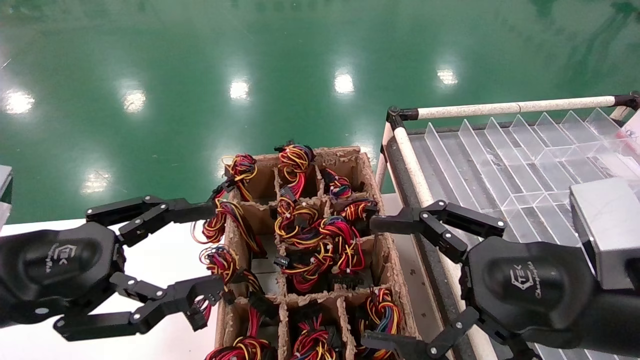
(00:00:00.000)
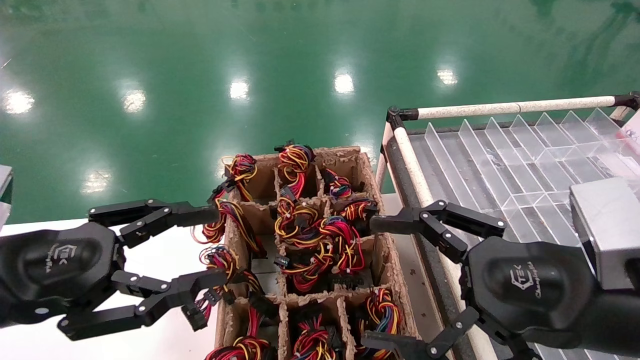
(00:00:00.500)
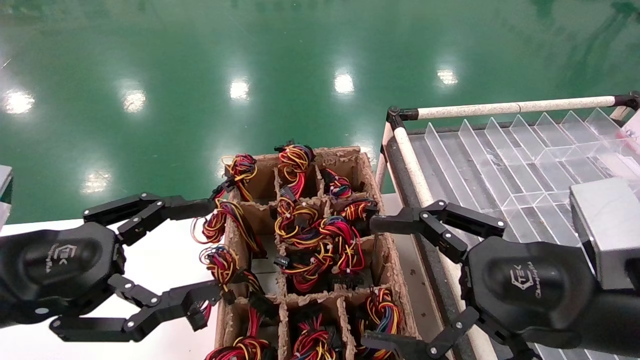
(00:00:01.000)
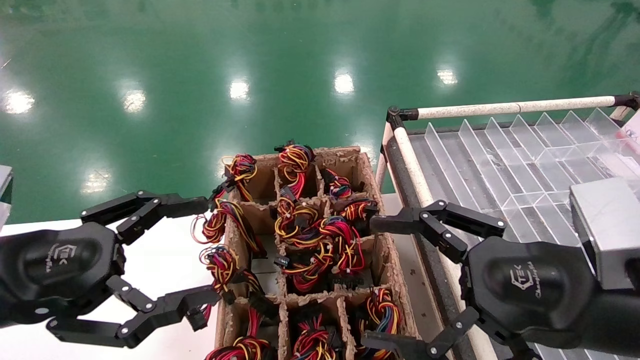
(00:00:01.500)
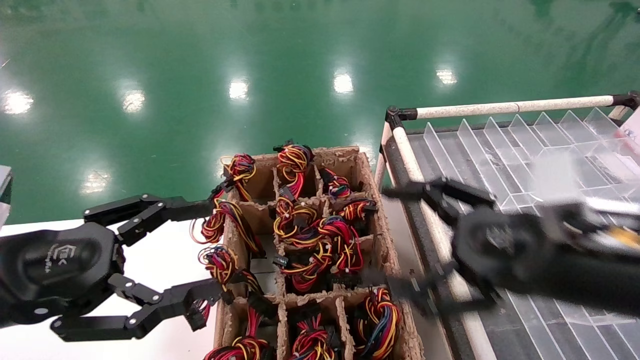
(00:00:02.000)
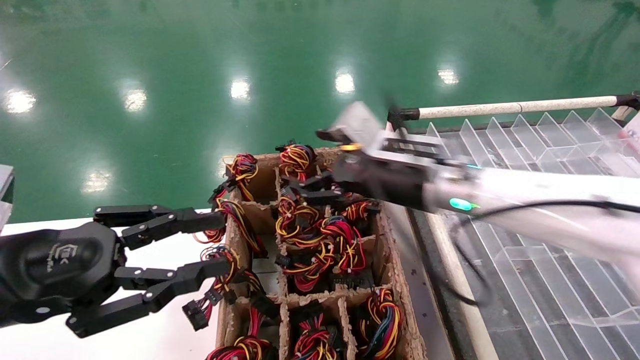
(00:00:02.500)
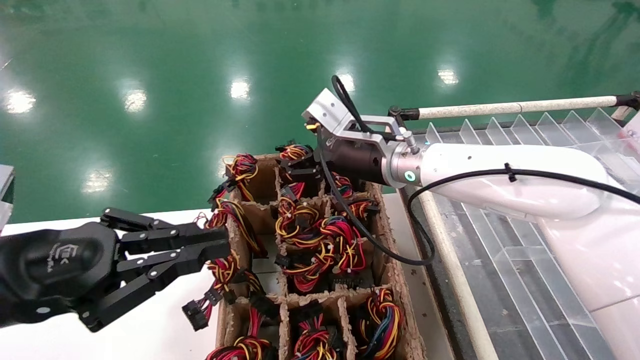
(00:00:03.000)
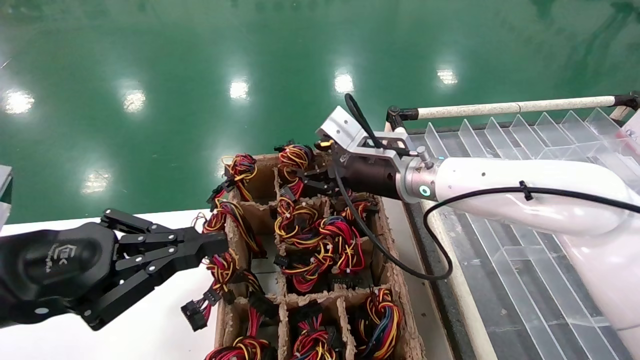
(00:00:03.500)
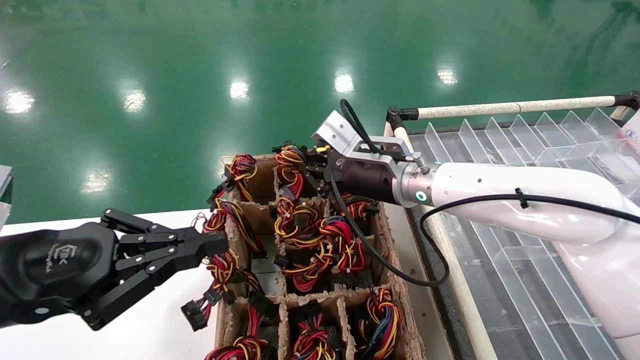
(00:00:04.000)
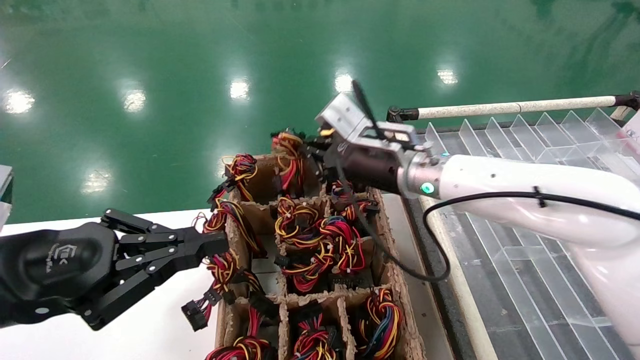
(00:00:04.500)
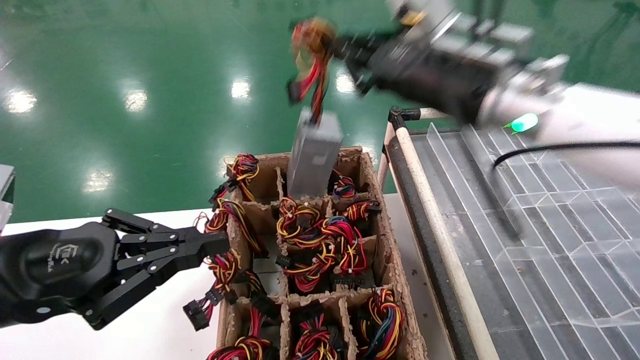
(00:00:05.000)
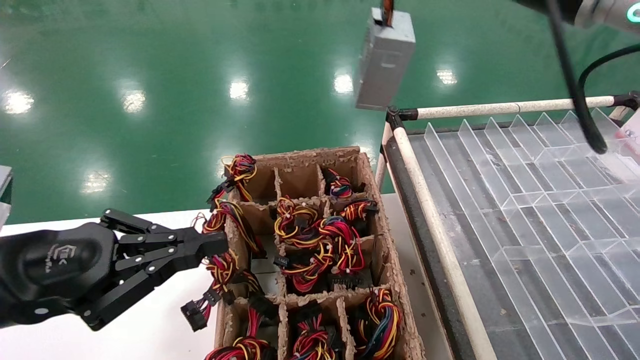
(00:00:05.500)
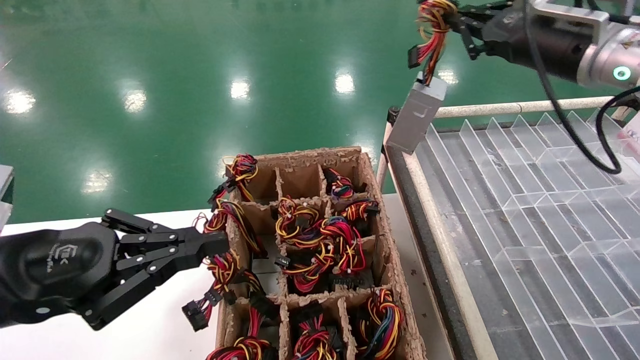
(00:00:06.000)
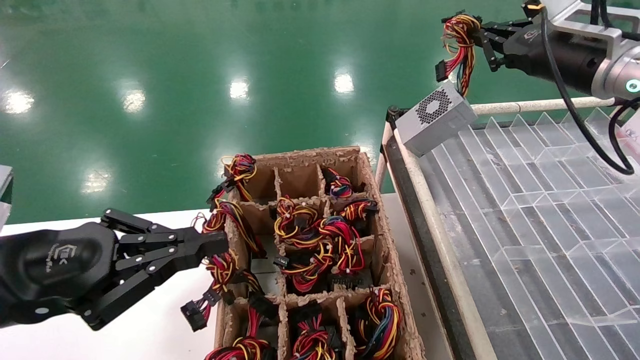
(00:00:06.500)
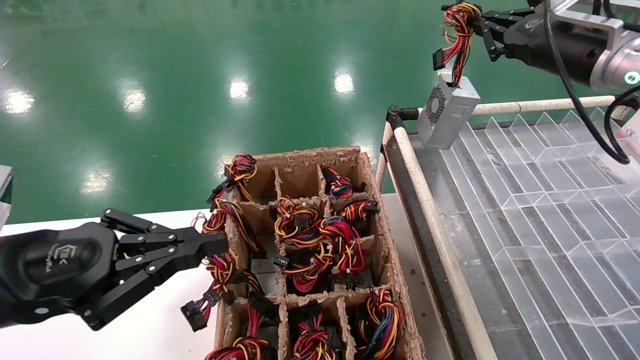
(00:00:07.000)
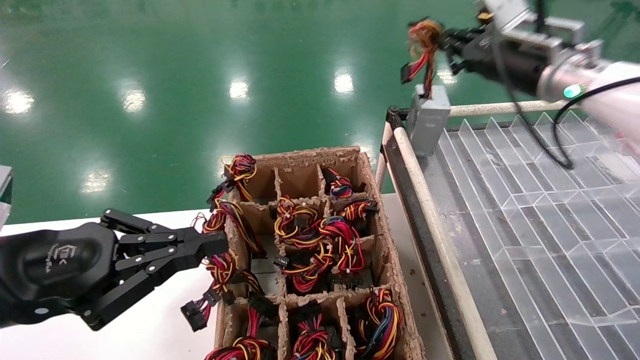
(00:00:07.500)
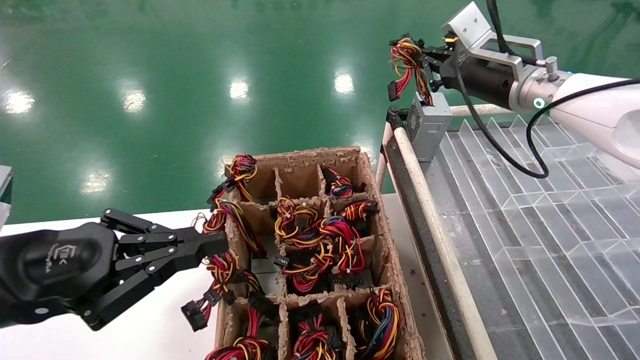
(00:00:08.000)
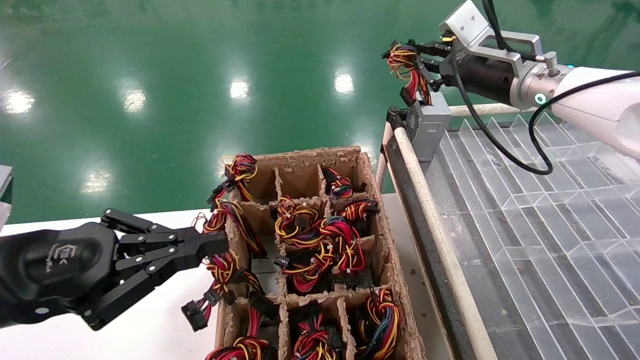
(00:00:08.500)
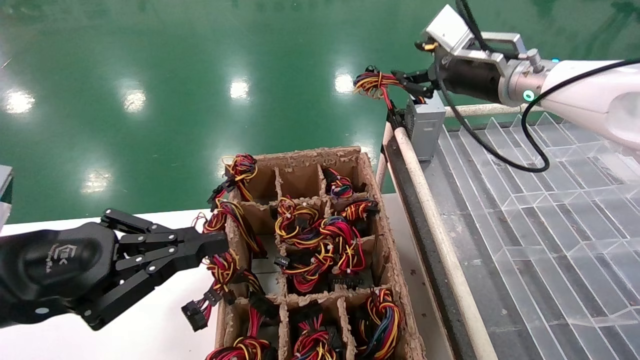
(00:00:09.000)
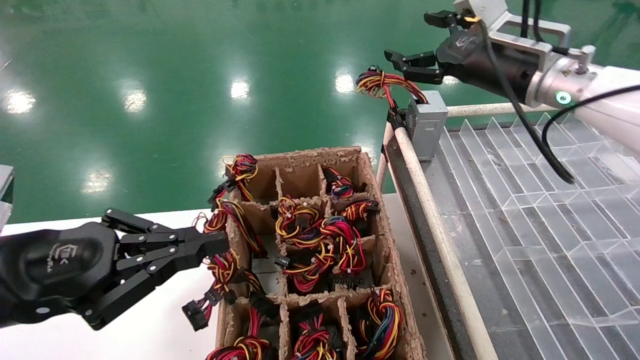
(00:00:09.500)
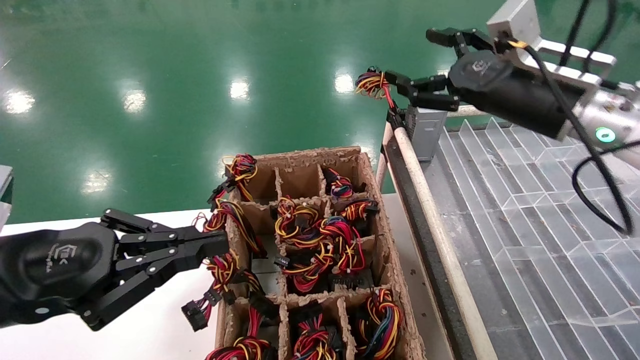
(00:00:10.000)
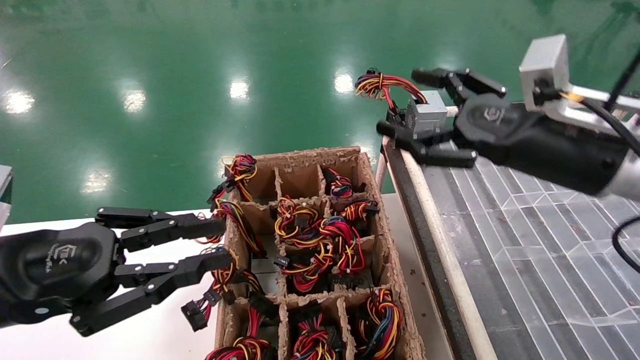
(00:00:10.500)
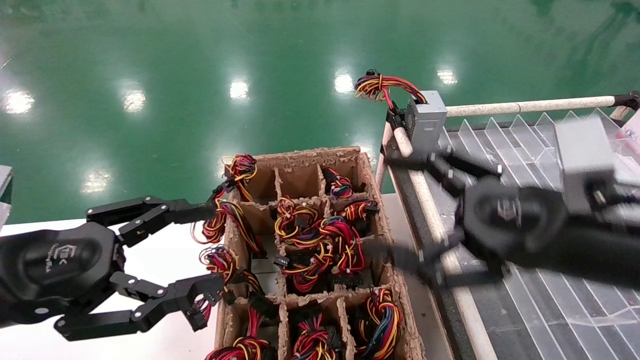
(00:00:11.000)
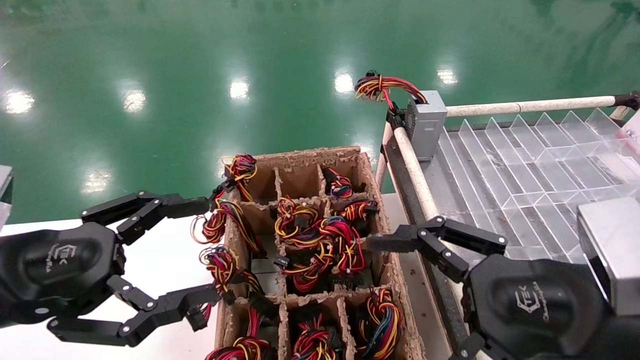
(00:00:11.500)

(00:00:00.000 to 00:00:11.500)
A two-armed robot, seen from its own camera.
Step, 00:00:02.500 - 00:00:04.000: Grab the main unit power supply from the containment box.
Step, 00:00:04.500 - 00:00:09.000: Place the main unit power supply in the designated area.
00:00:00.000 - 00:00:02.000: The right gripper travels forward by roughly 5 cm.
00:00:02.000 - 00:00:04.000: The right gripper is displaced forward and to the left by about 20 cm, and closes its fingers, while the left gripper closes its fingers.
00:00:04.000 - 00:00:06.000: The right gripper goes about 25 cm to the right and upward.
00:00:06.000 - 00:00:07.500: The right gripper changes place by approximately 5 cm.
00:00:07.500 - 00:00:09.500: The right gripper opens its fingers.
00:00:09.500 - 00:00:11.500: The right gripper moves backward and downward, some 30 cm, while the left gripper opens its fingers.

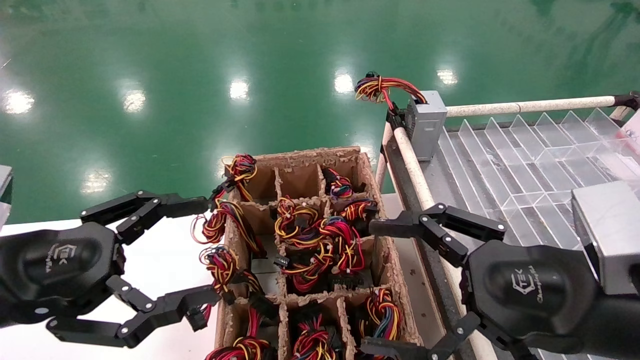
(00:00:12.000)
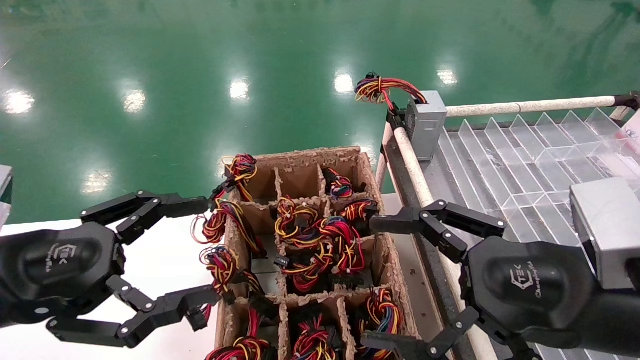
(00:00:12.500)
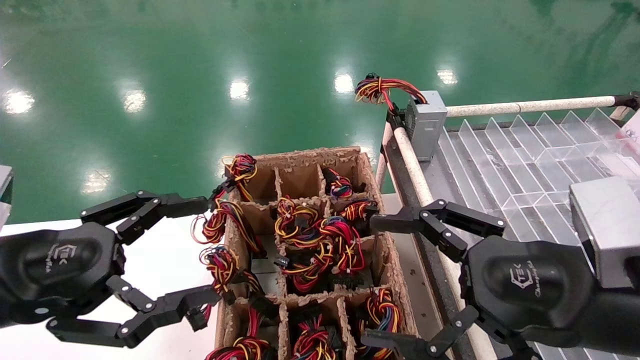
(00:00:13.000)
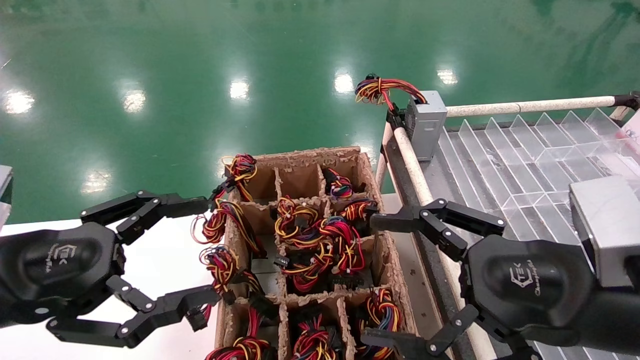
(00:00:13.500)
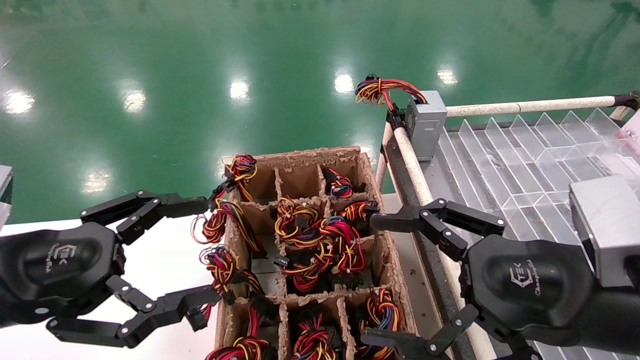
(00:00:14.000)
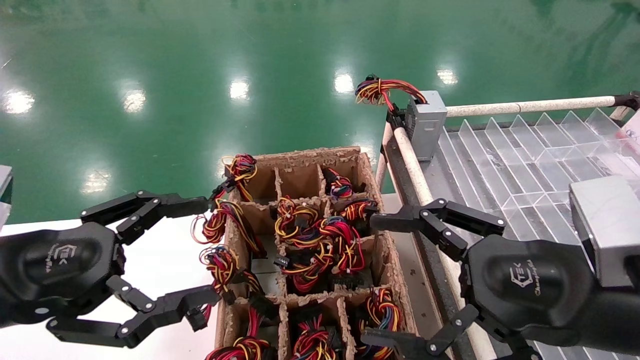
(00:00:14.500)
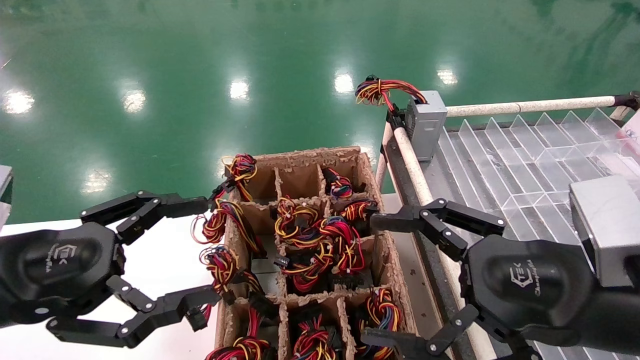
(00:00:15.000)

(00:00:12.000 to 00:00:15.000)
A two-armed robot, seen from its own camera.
00:00:12.000 - 00:00:15.000: Neither gripper changes place.
